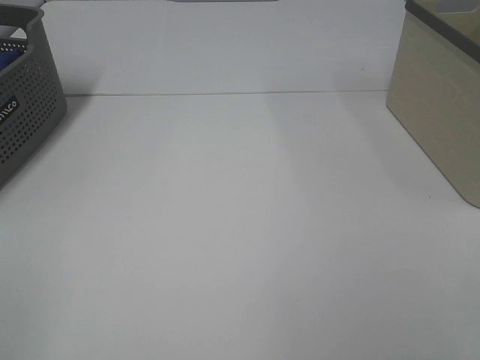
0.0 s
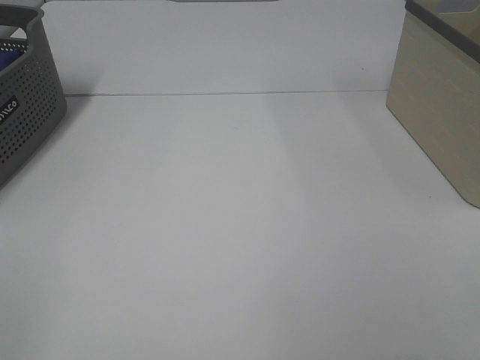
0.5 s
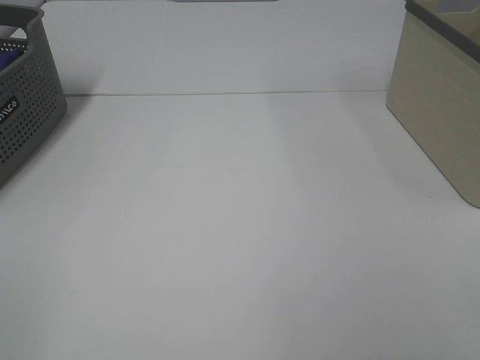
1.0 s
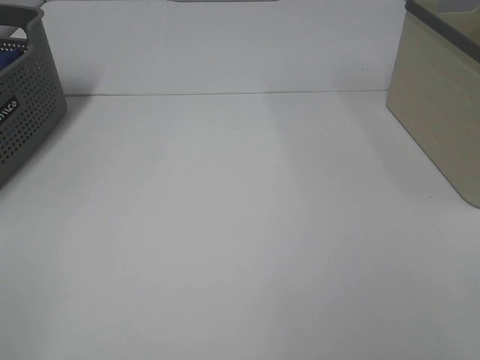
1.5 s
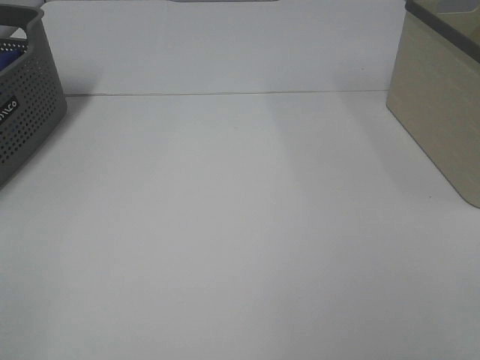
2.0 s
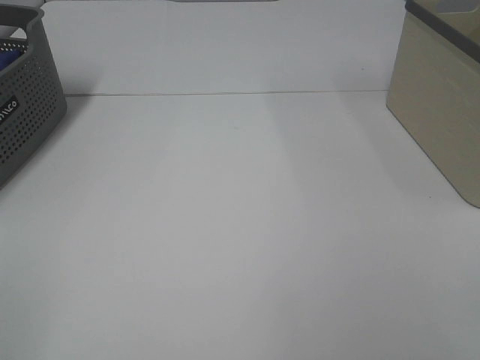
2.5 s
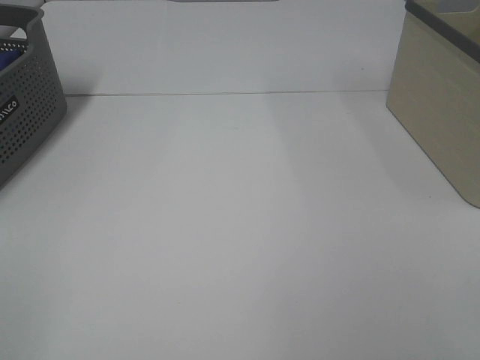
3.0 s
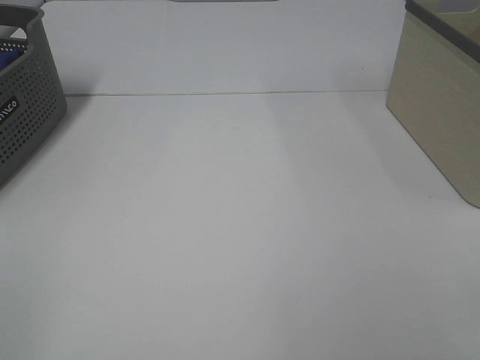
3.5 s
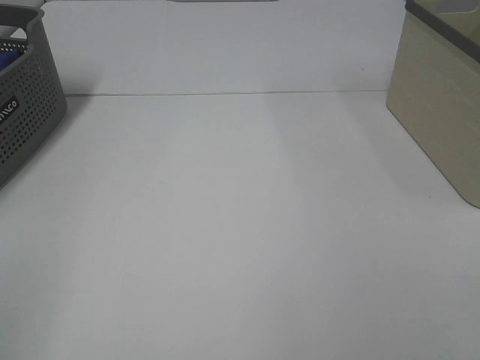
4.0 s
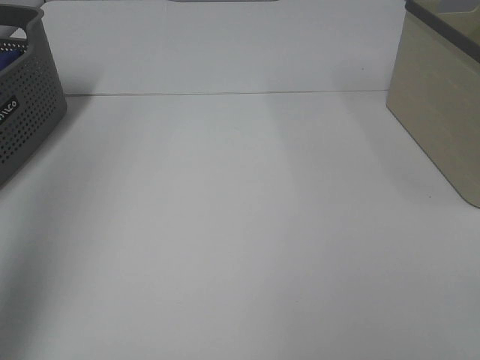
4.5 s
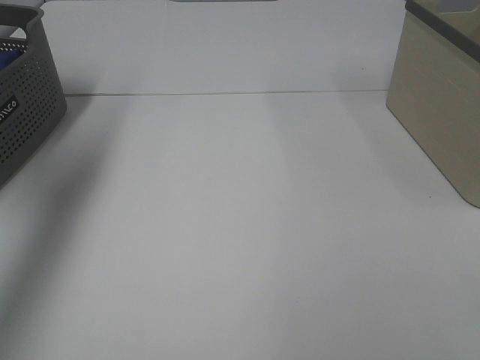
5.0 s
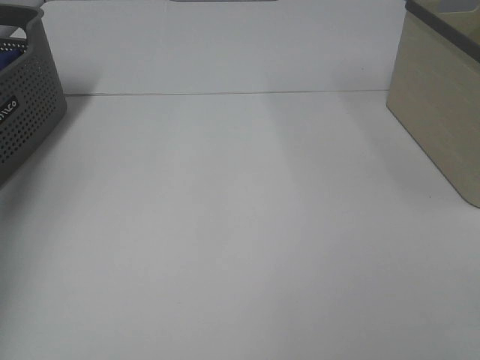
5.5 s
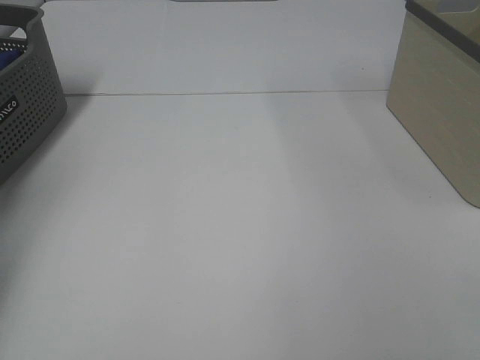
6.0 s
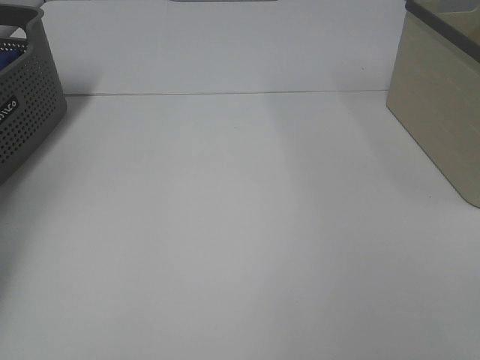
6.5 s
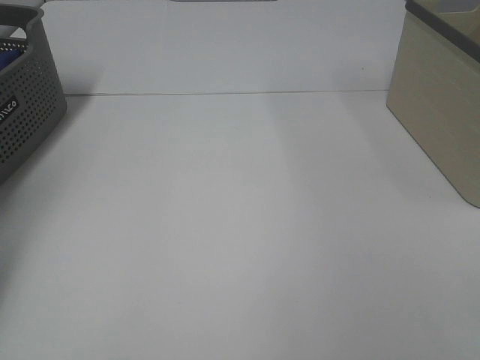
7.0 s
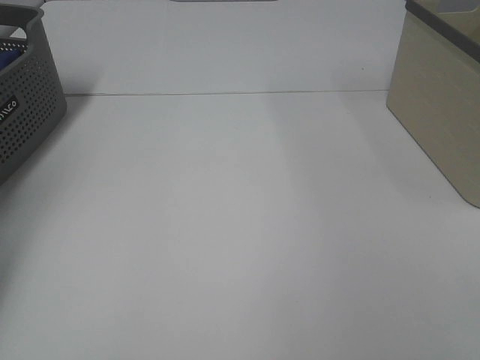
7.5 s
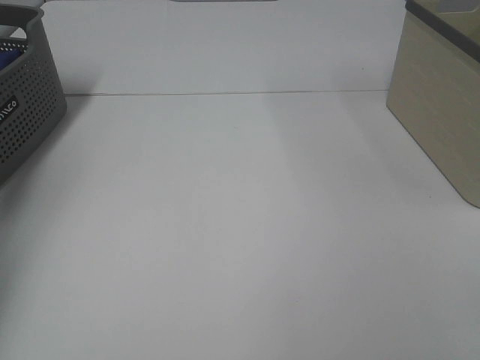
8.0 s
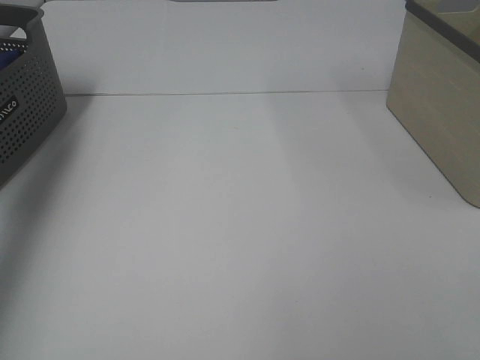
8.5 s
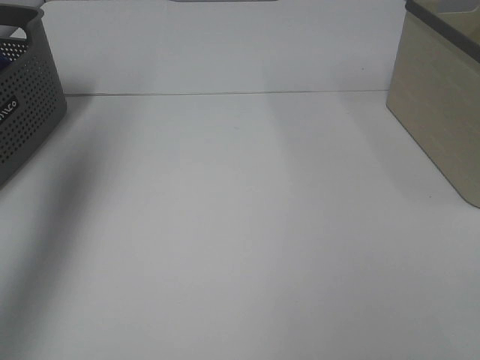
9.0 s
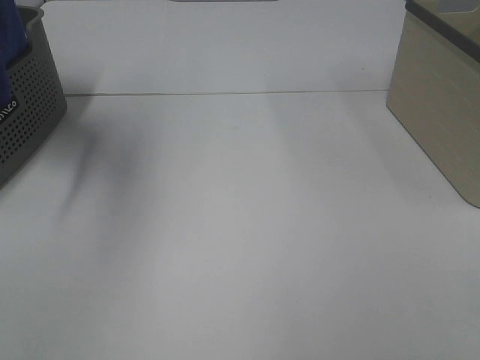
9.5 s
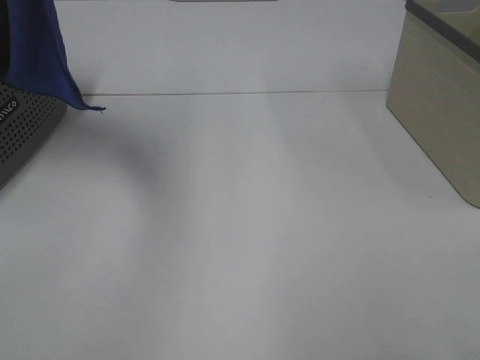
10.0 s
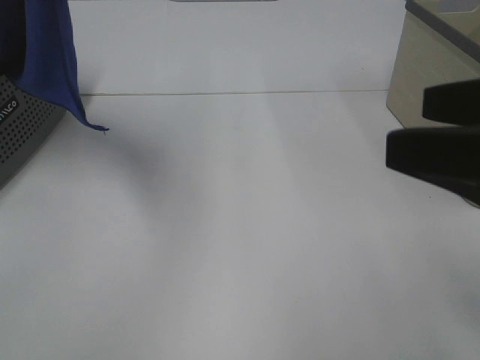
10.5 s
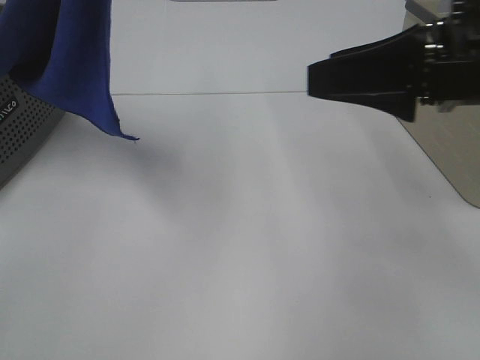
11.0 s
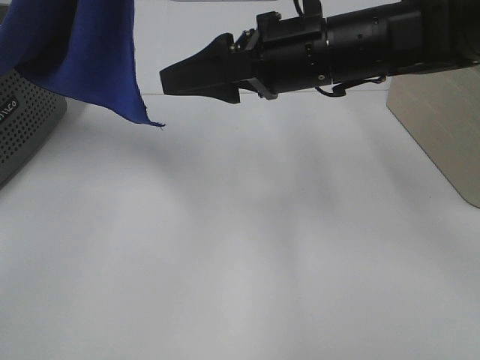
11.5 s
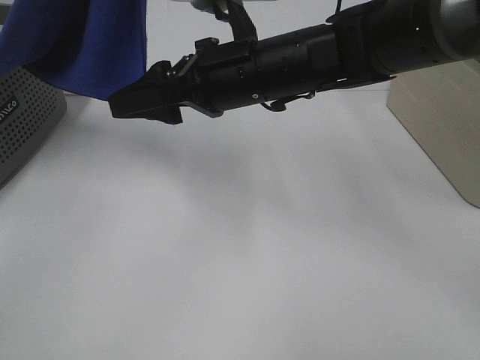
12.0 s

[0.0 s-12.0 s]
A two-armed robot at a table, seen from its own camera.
Task of the whole recording: Remove the towel and place it.
0.0 to 2.0 s: Both grippers stay put.
4.0 to 6.0 s: The left gripper is displaced forward by some 40 cm.
8.0 to 10.0 s: The left gripper goes about 40 cm to the right, upward and backward.
10.0 to 12.0 s: The left gripper heads to the right, covering approximately 5 cm. The right gripper moves forward and to the left, roughly 40 cm.

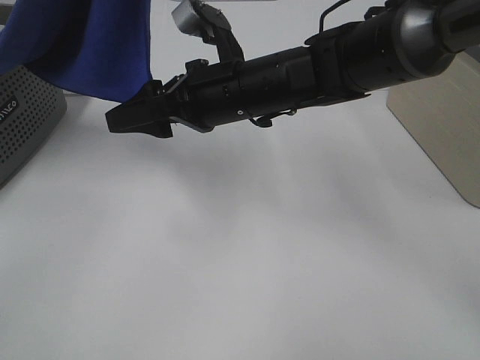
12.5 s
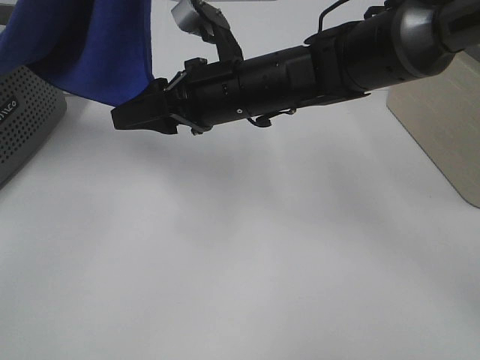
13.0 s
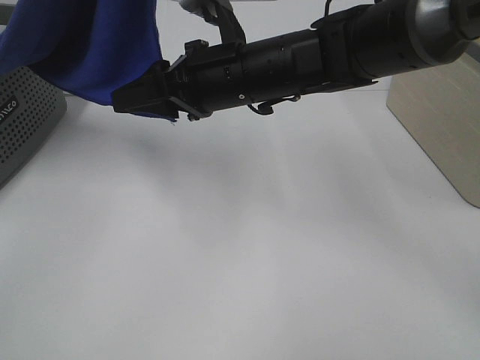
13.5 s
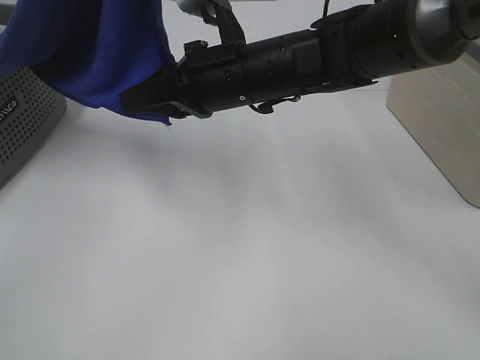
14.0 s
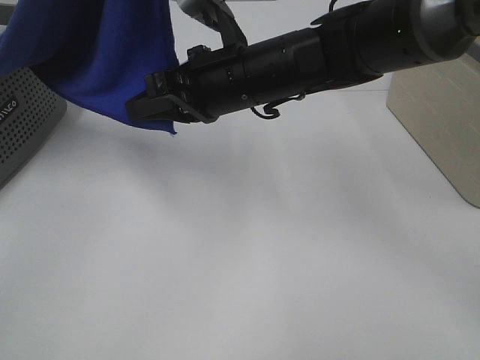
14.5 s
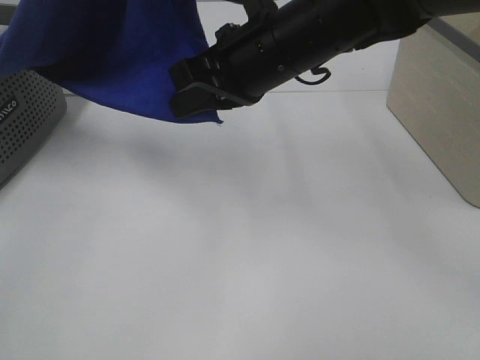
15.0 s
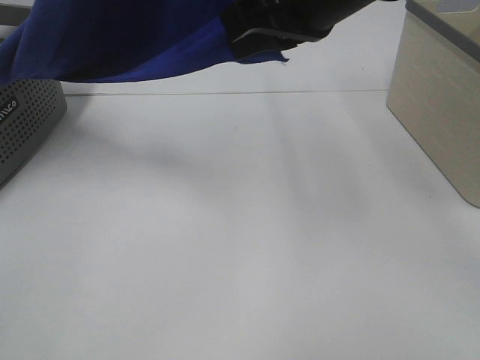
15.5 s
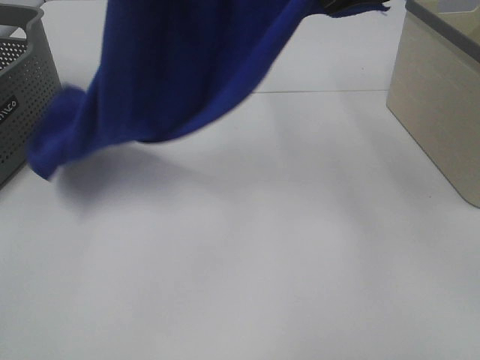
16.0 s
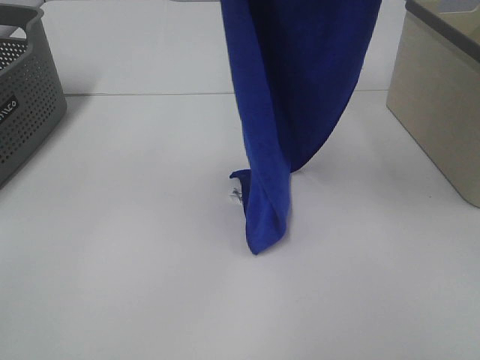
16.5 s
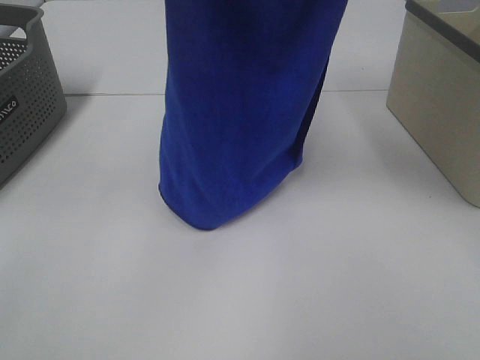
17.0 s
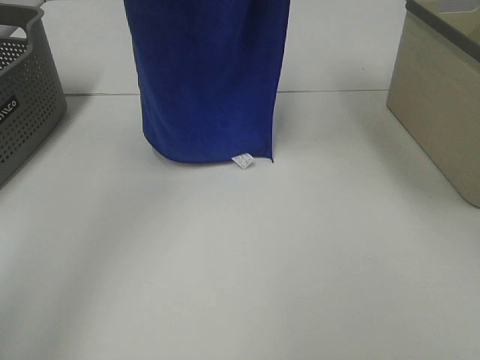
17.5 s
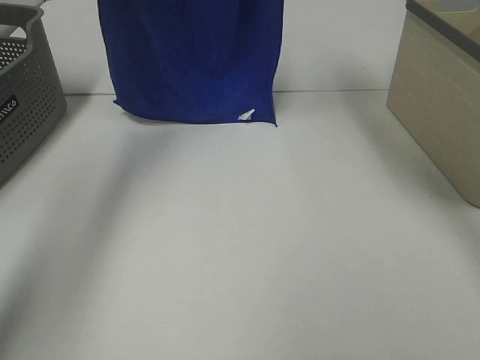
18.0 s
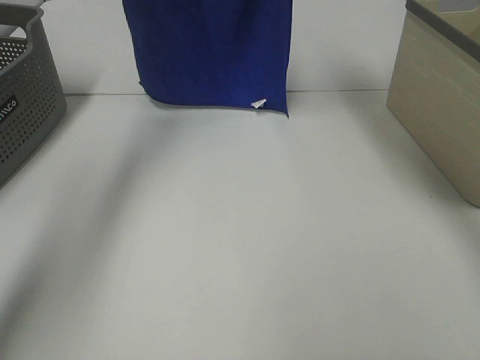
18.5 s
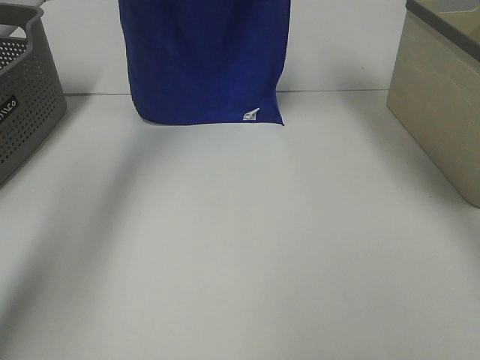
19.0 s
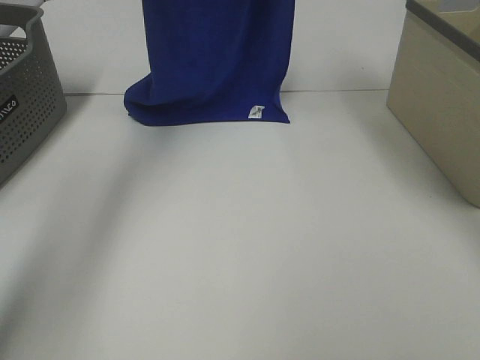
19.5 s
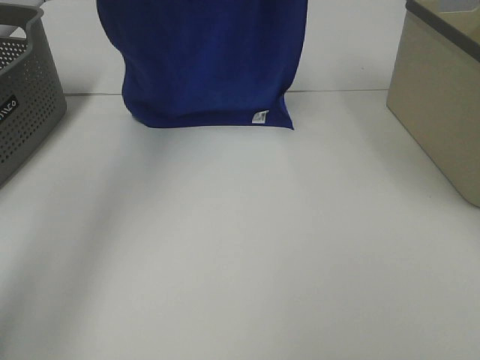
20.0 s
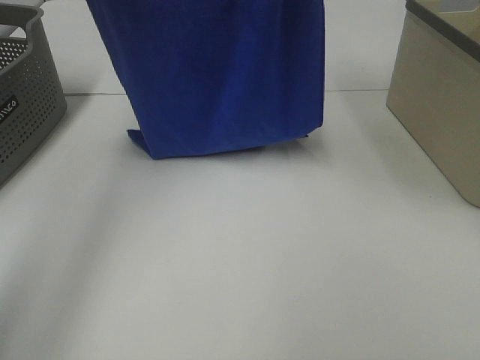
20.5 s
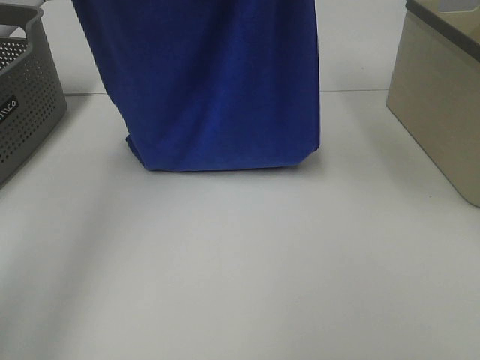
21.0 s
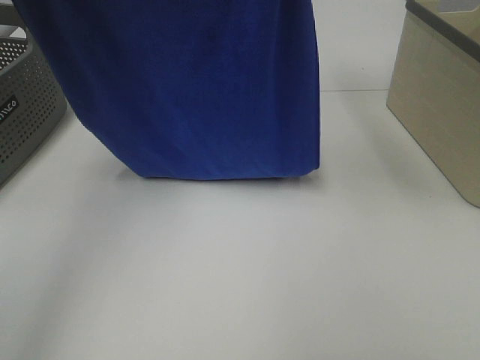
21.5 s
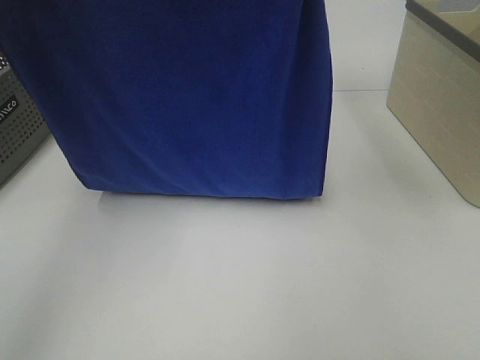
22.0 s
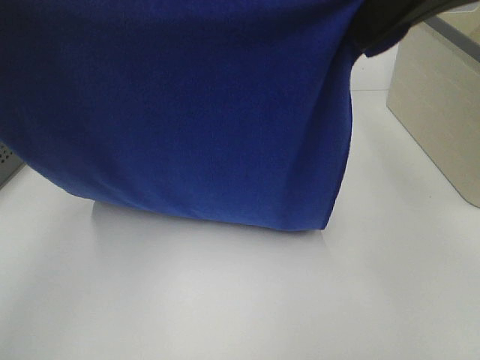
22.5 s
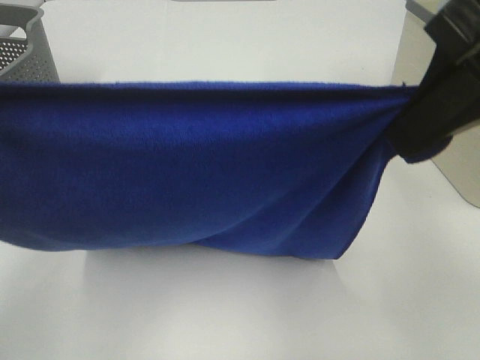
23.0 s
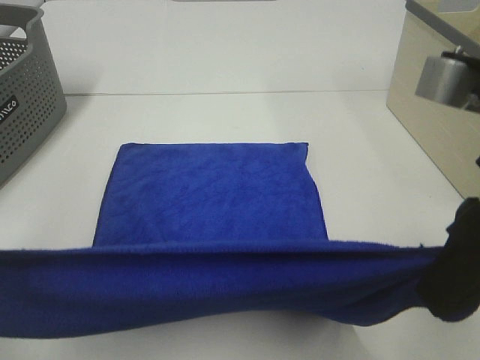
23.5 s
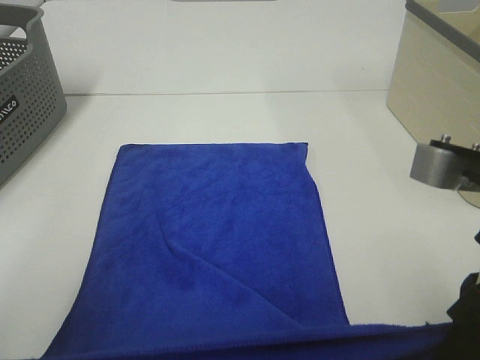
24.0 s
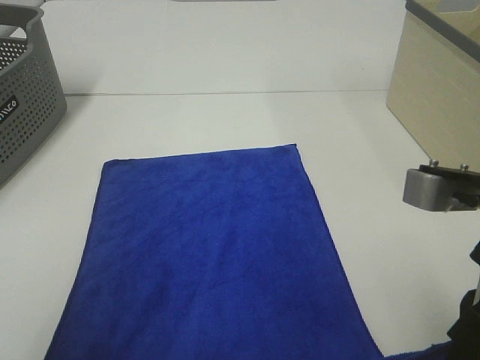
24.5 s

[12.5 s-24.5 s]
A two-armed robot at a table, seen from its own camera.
Task of the whole recording: Remove the towel and place it.
Step, 12.5 to 15.0 s: Right hand: grab a corner of the blue towel and straighten it.
Step, 15.5 to 21.5 s: Left hand: spread the blue towel flat on the table.
Step, 15.5 to 21.5 s: Right hand: spread the blue towel flat on the table.
12.5 to 14.5 s: The right gripper closes.
14.5 to 16.5 s: The right gripper is displaced upward and to the right by some 30 cm.
16.5 to 18.5 s: Both grippers travel together forward, some 20 cm.
18.5 to 20.5 s: The grippers both shift backward by approximately 15 cm.
20.5 to 22.5 s: The right gripper heads backward and downward, covering roughly 15 cm. Meanwhile the left gripper goes approximately 20 cm backward.
22.5 to 24.5 s: The two grippers go roughly 20 cm downward and backward.

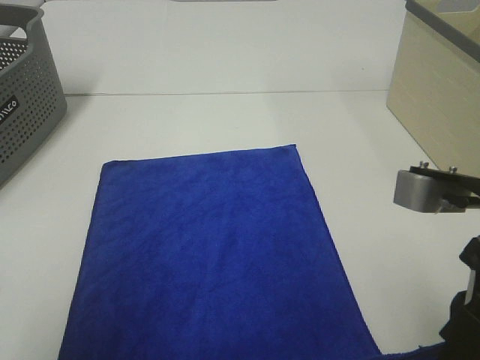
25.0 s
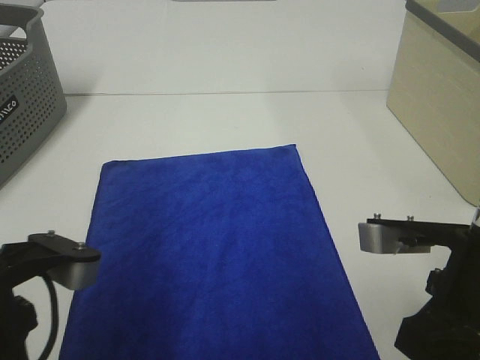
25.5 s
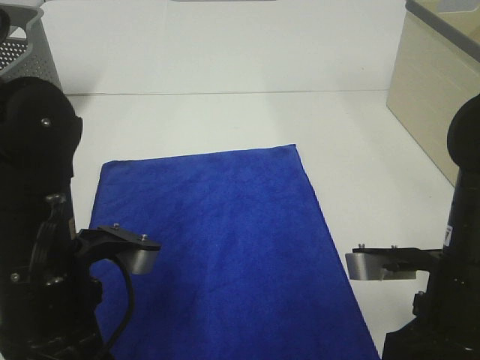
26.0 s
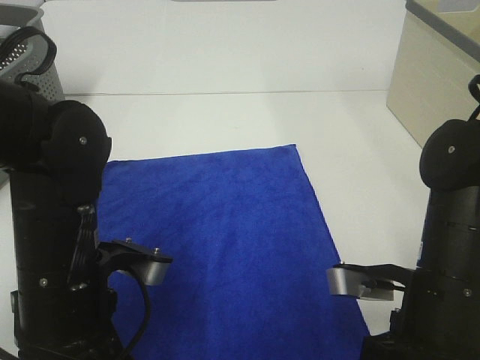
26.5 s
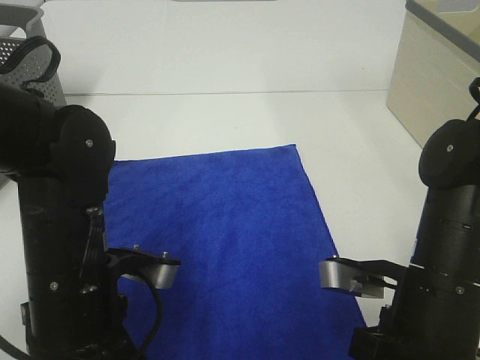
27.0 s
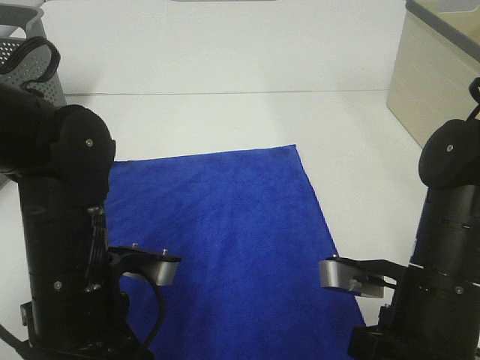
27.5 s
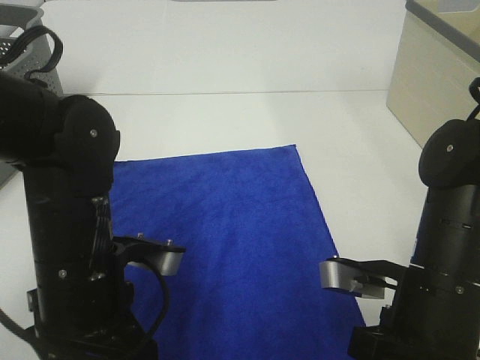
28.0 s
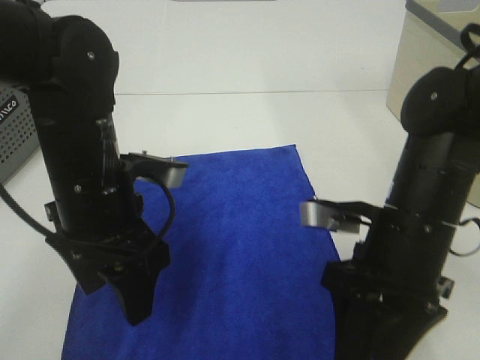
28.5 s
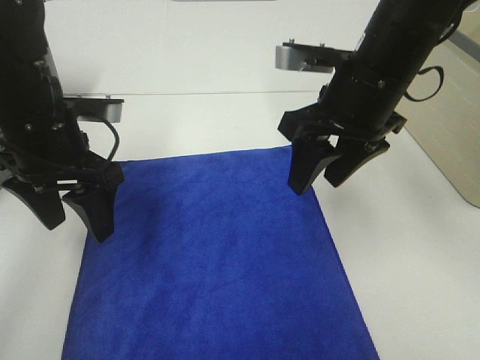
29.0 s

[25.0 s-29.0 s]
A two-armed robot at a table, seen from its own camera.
Task of the whole recording: Remove the towel and place it.
25.0 to 27.0 s: The right gripper travels downward by roughly 10 cm. Meanwhile the left gripper moves forward, downward and to the right, approximately 15 cm.
27.0 to 29.0 s: The left gripper moves forward, to the left and upward, approximately 15 cm, and opens up; the right gripper shifts about 20 cm forward and upward, and opens its fingers.
